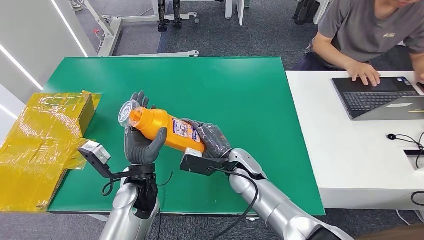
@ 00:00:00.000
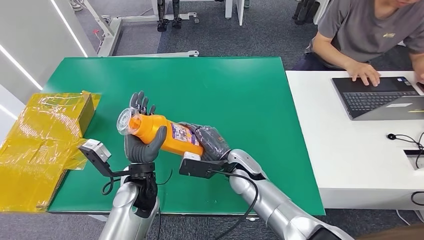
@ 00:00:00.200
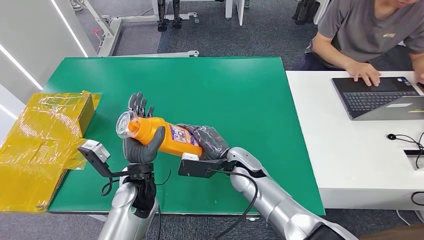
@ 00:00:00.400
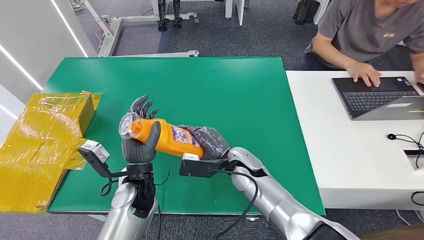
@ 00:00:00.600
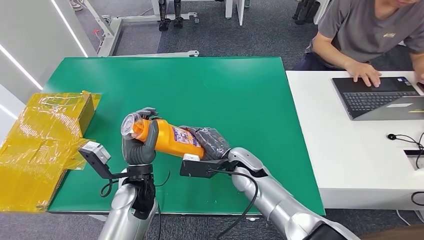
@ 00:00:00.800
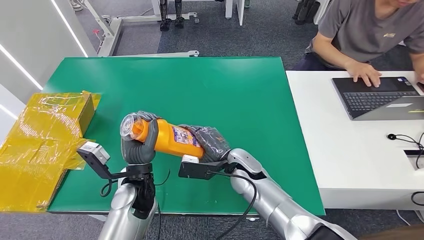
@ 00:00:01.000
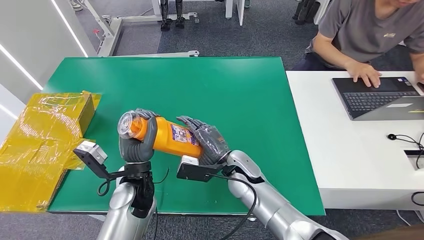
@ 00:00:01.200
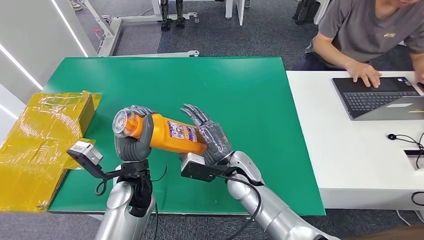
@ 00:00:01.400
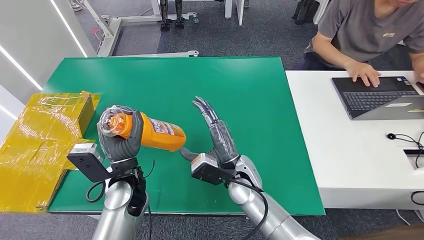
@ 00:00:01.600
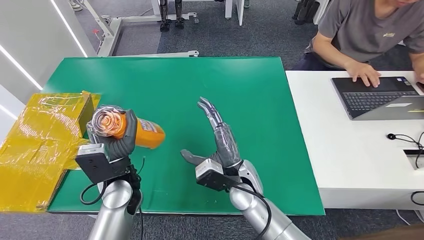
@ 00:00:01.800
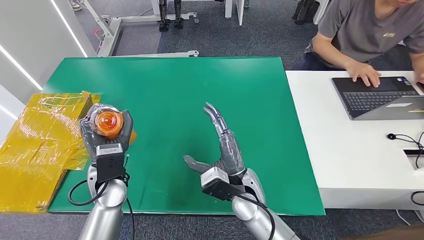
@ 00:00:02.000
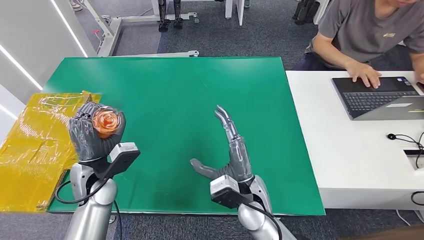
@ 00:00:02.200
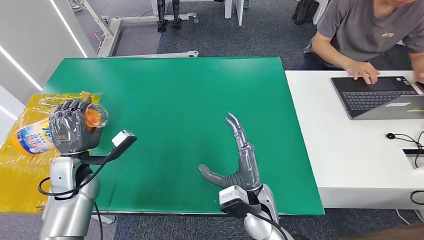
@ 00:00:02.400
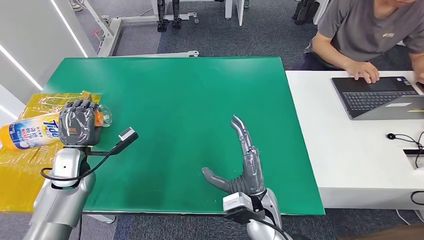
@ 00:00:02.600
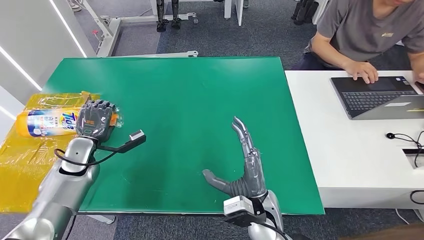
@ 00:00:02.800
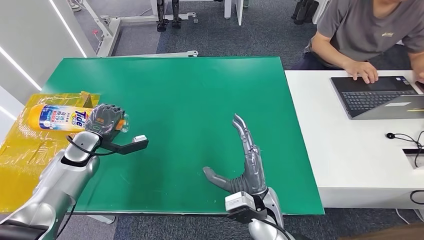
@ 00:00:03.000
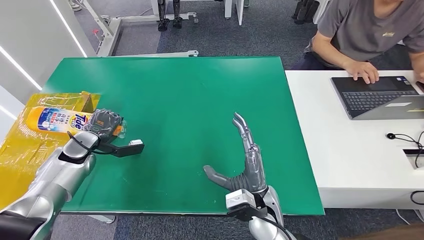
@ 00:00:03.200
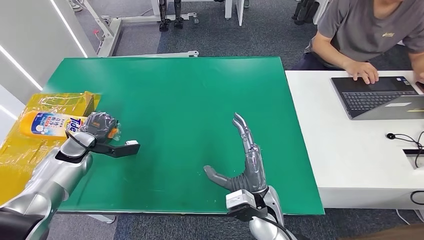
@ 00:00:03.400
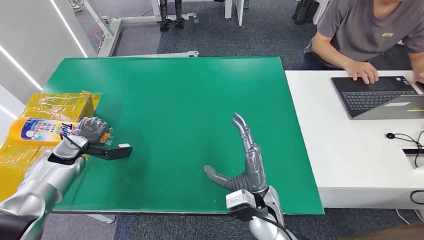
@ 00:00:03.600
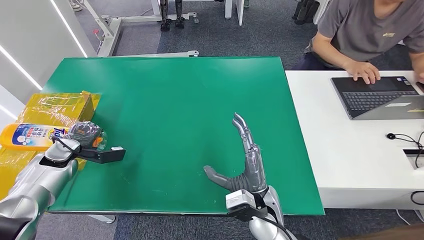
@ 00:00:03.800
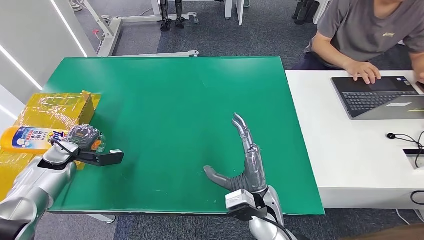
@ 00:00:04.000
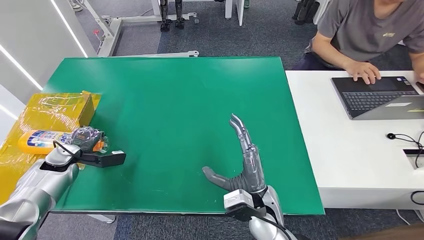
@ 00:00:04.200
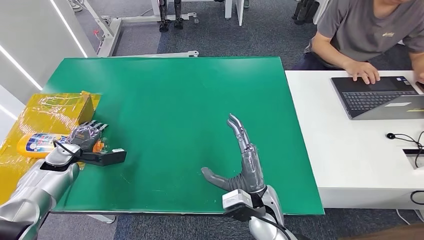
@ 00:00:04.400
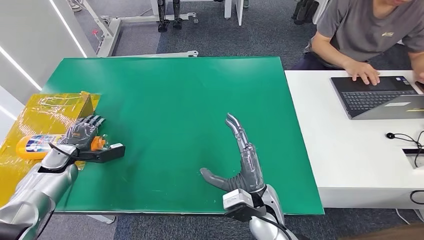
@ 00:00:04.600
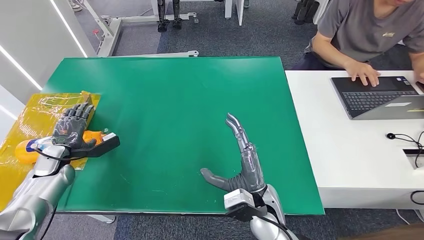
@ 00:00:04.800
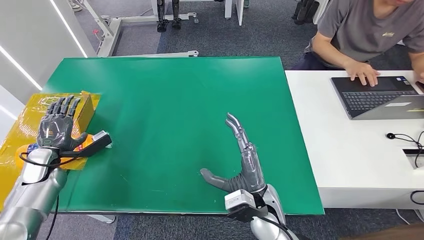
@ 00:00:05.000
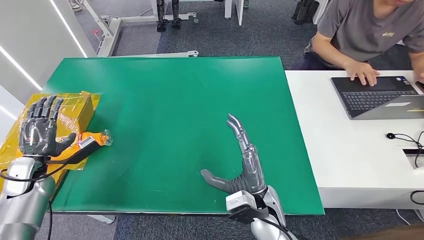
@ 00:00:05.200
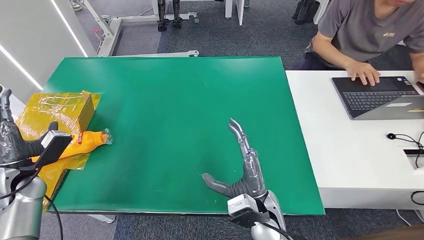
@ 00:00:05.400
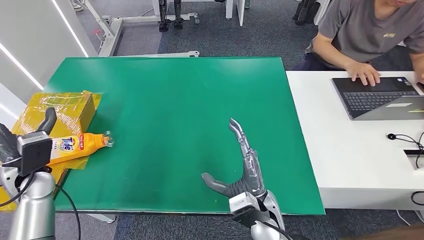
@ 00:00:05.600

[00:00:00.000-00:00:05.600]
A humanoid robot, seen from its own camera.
Step, 00:00:00.000 to 00:00:05.600: Turn the bottle to the front side.
00:00:00.000 to 00:00:01.400: The hands move only a little.
00:00:02.800 to 00:00:04.200: The left hand is displaced to the left by approximately 10 cm.
00:00:04.200 to 00:00:05.600: The left hand is displaced upward and backward by about 10 cm.
